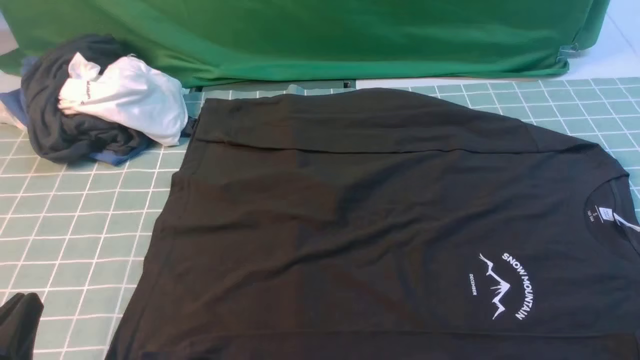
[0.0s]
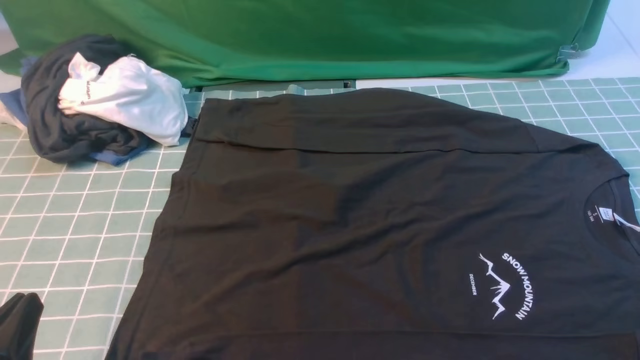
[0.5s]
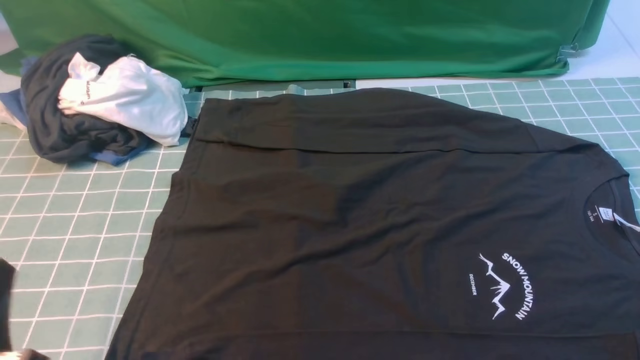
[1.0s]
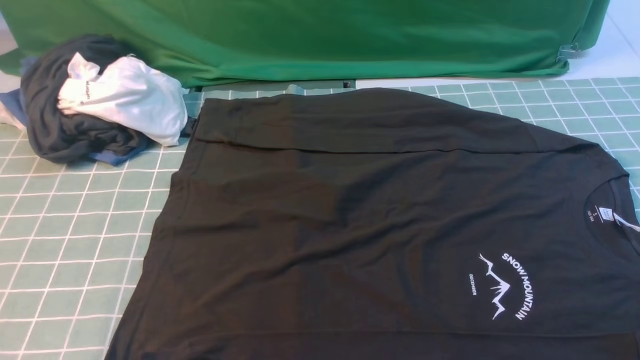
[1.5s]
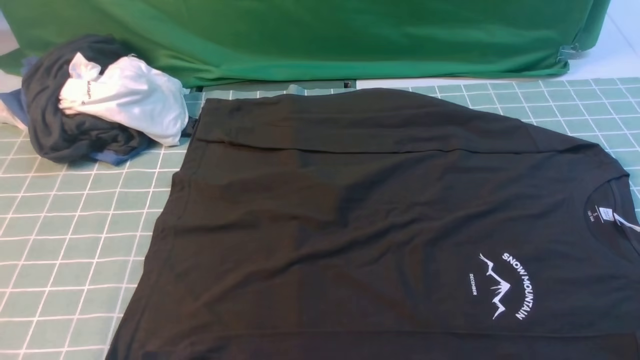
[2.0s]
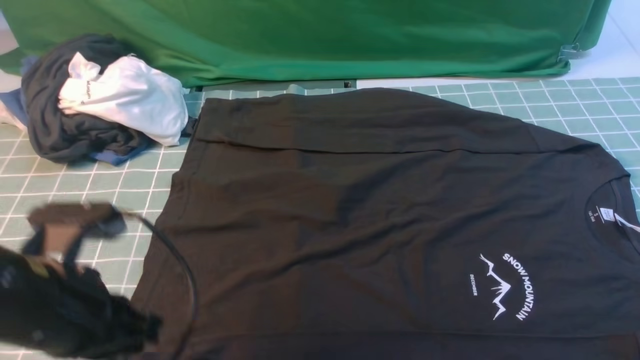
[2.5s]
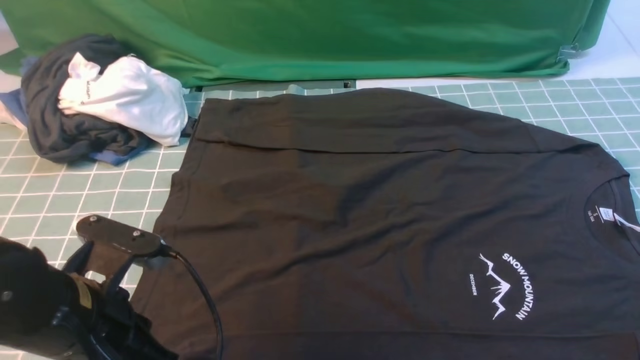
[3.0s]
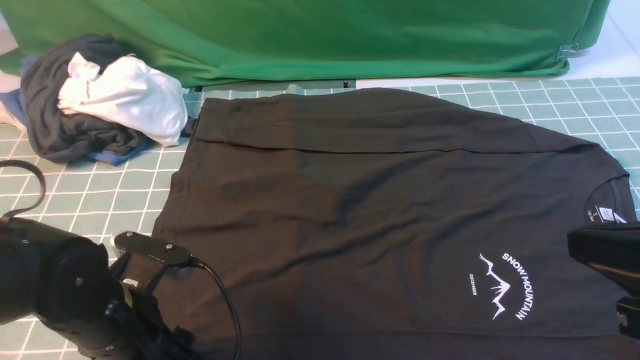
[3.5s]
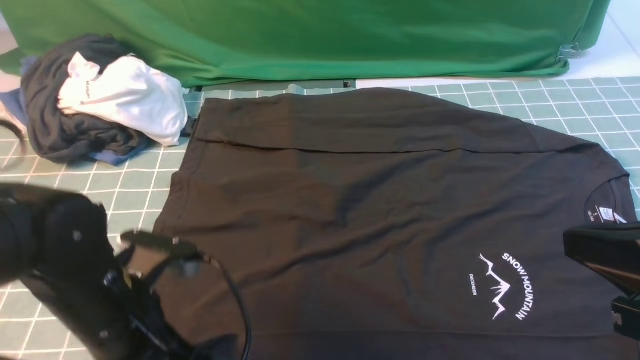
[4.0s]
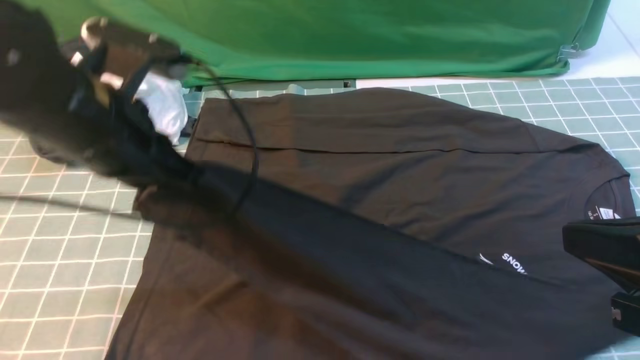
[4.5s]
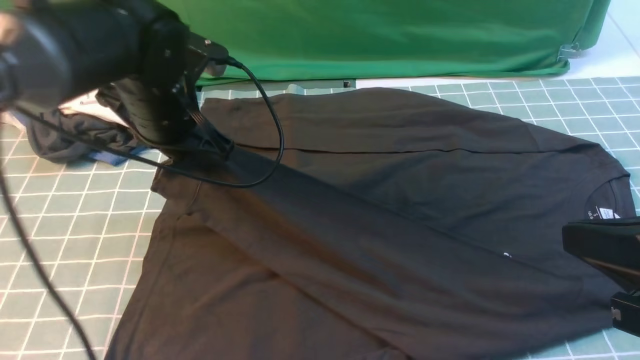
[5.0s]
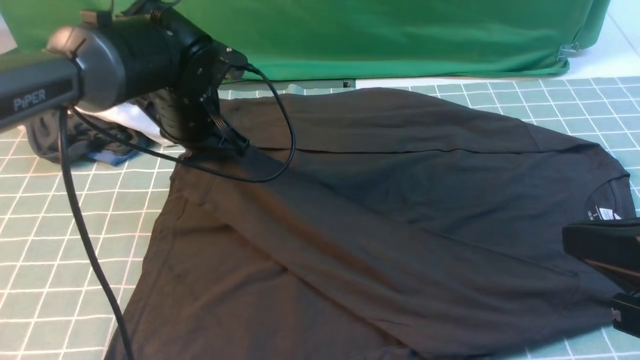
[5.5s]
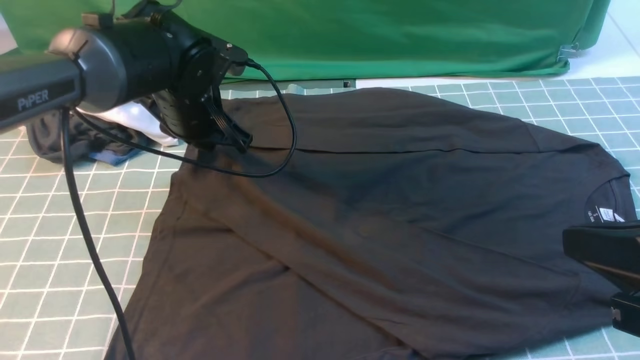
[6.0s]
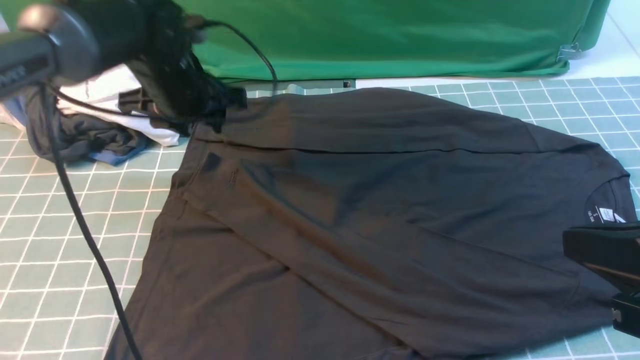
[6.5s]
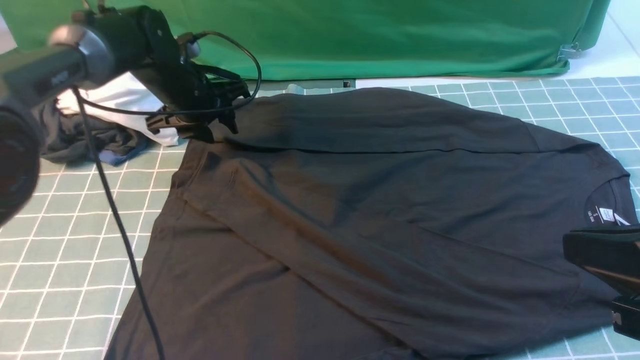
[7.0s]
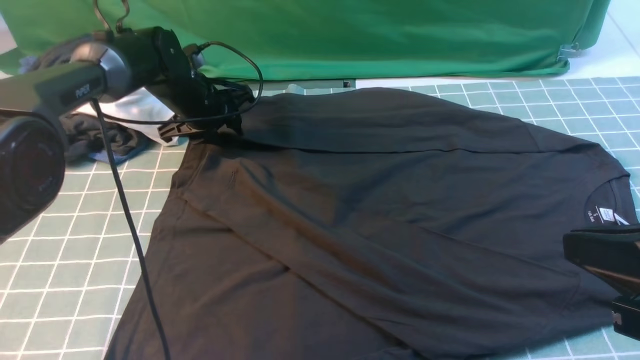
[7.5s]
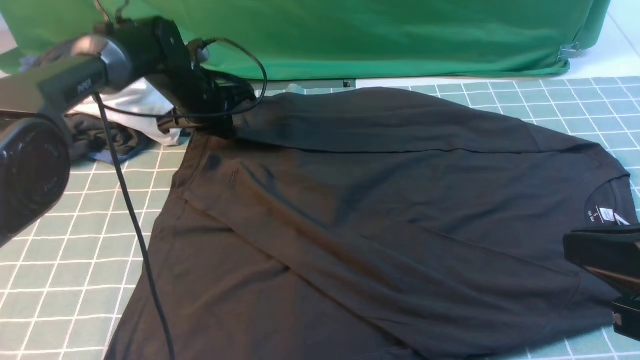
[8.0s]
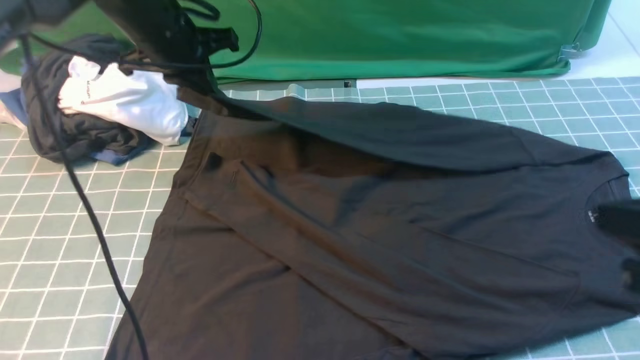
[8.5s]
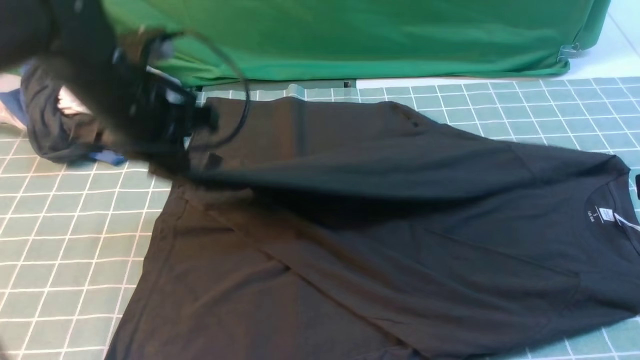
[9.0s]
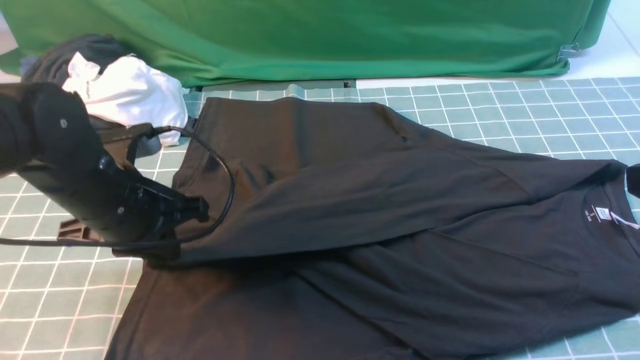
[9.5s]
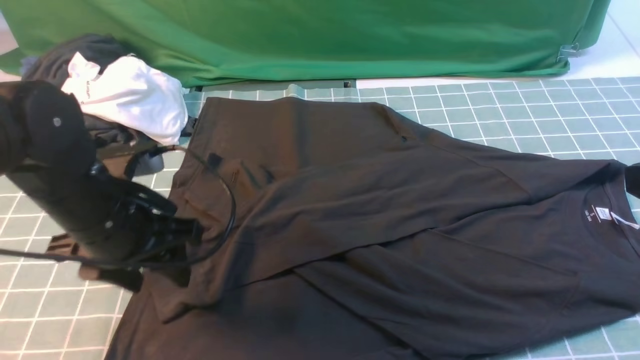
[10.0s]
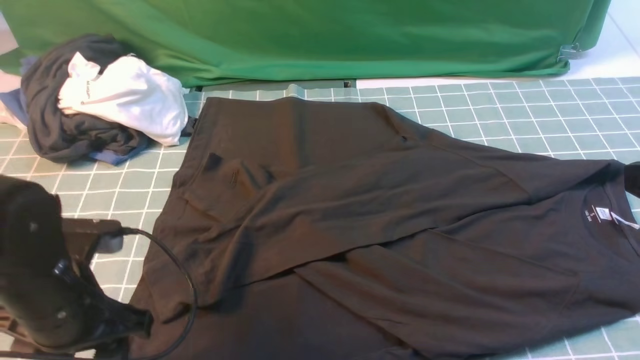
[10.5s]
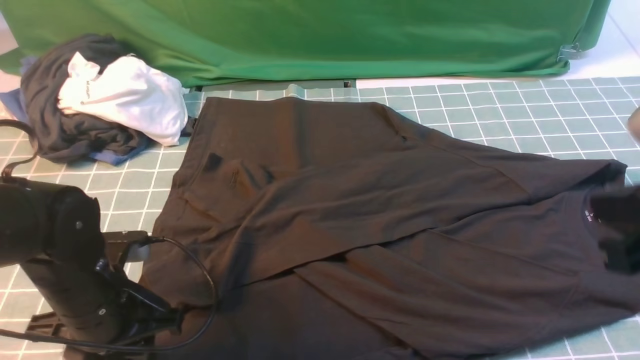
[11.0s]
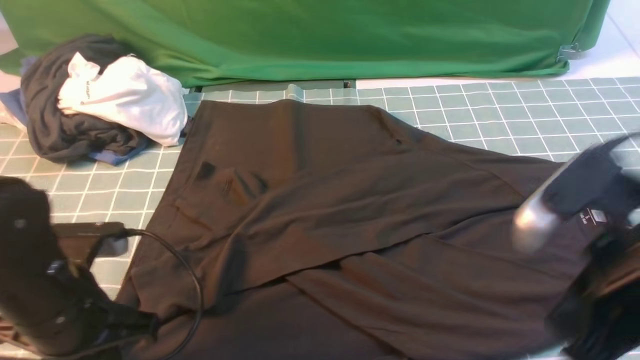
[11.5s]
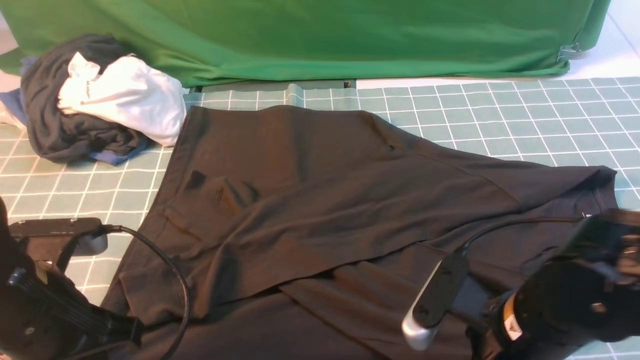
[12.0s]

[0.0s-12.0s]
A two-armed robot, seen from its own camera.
Step, 0.0s to 3.5s: use the left arm to clamp the cuff closest to it.
Step, 4.0s to 6.0s: use the left arm to drag and place the cuff at the centered position on the left edge of the fabric.
Step, 6.5s to 7.5s: use the left arm to clamp the cuff farthest from it.
Step, 8.0s to 10.0s: use the left arm to drag and drop the cuff onto the cuff closest to the left arm.
0.0s to 2.0s: The left gripper shifts about 15 cm upward.
2.0s to 4.0s: The left gripper travels downward, forward and to the right by approximately 20 cm, and opens, then closes again. The right gripper goes approximately 15 cm upward, to the left and forward, and closes its fingers.
4.0s to 6.0s: The left gripper goes approximately 20 cm forward, and opens.
6.0s to 8.0s: The left gripper moves forward, approximately 10 cm, and closes its fingers.
8.0s to 10.0s: The left gripper travels backward by some 25 cm, and opens its fingers.
10.0s to 12.0s: The left gripper moves backward, about 10 cm, and closes up. The right gripper shifts roughly 20 cm downward and to the left, and opens its fingers.

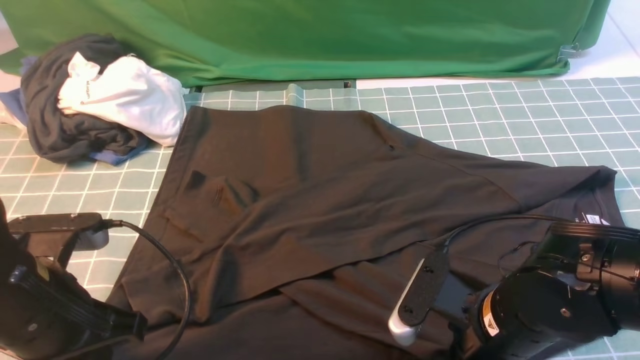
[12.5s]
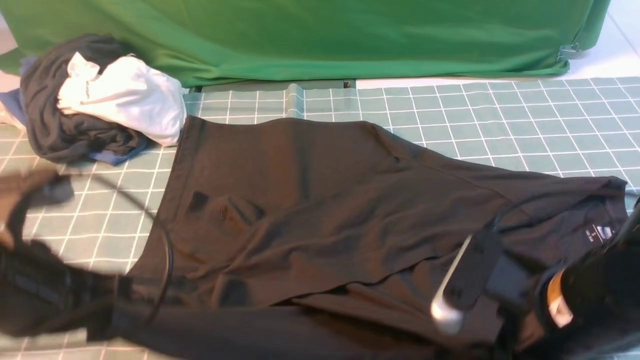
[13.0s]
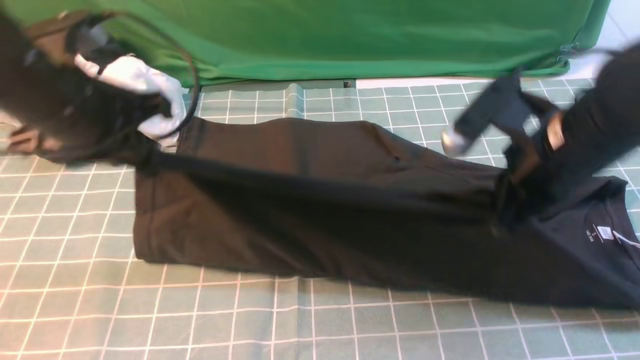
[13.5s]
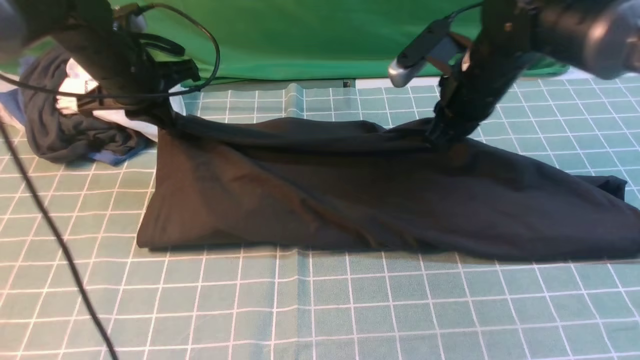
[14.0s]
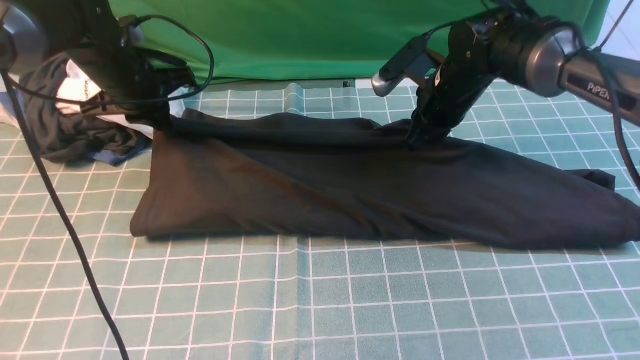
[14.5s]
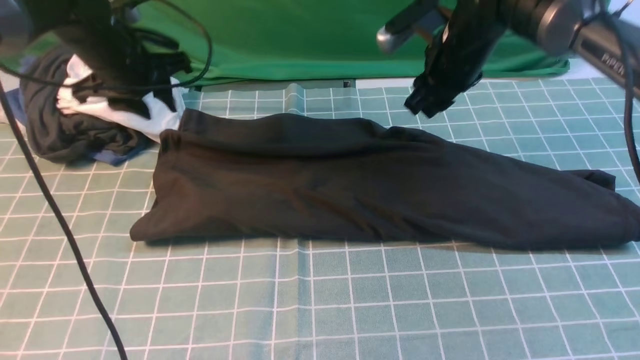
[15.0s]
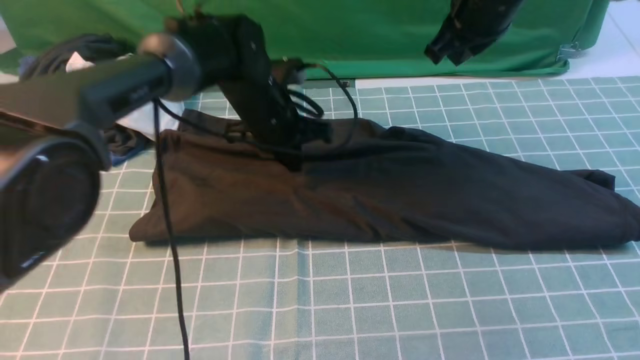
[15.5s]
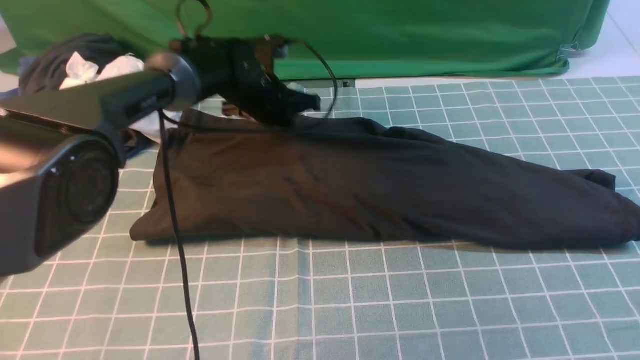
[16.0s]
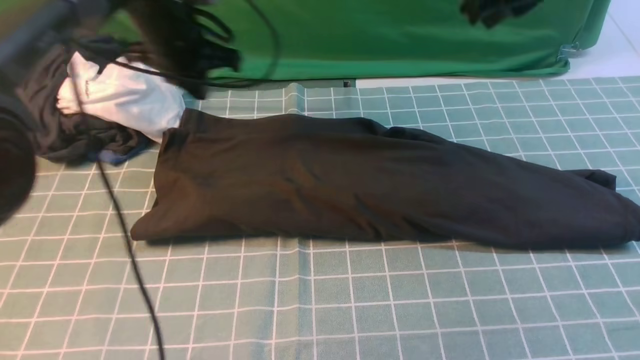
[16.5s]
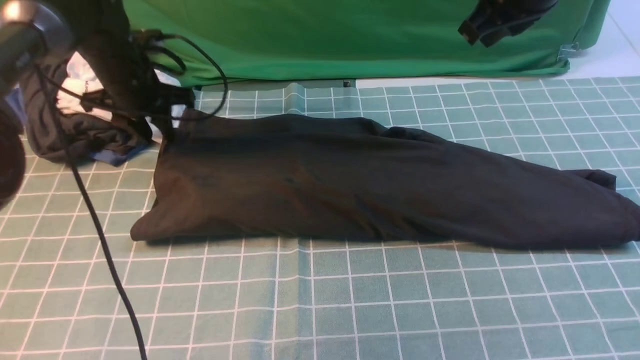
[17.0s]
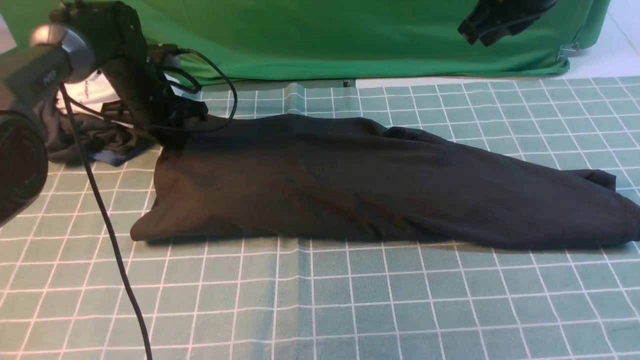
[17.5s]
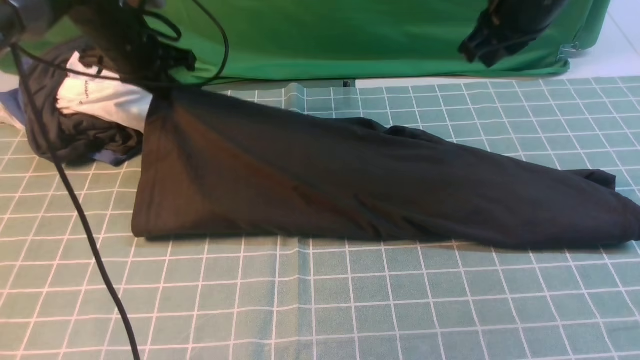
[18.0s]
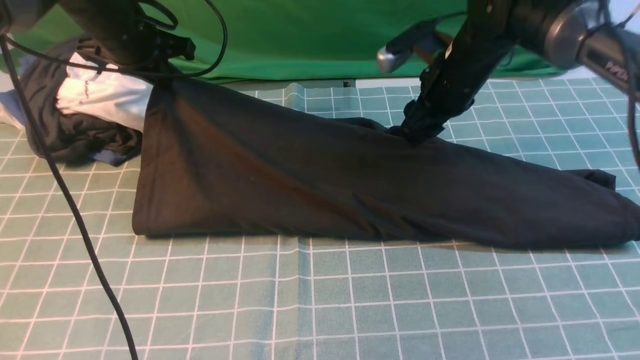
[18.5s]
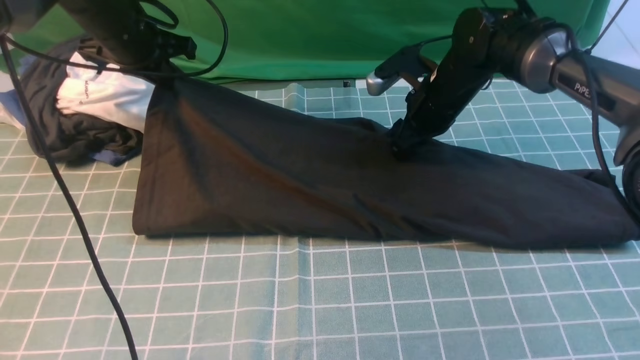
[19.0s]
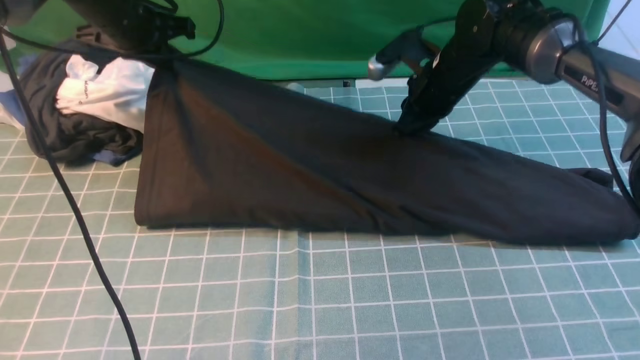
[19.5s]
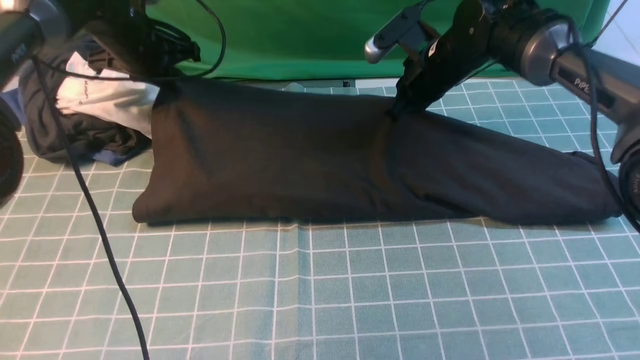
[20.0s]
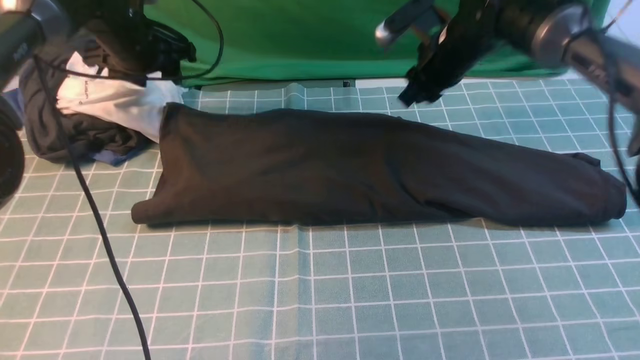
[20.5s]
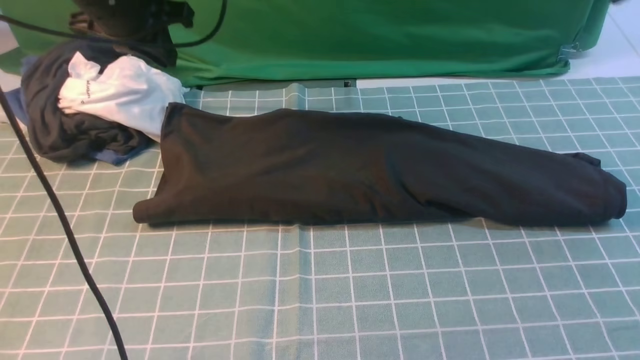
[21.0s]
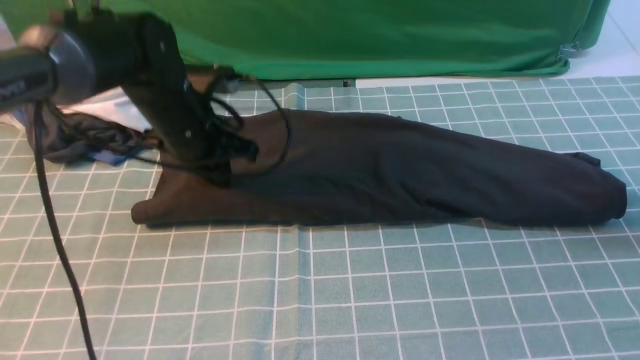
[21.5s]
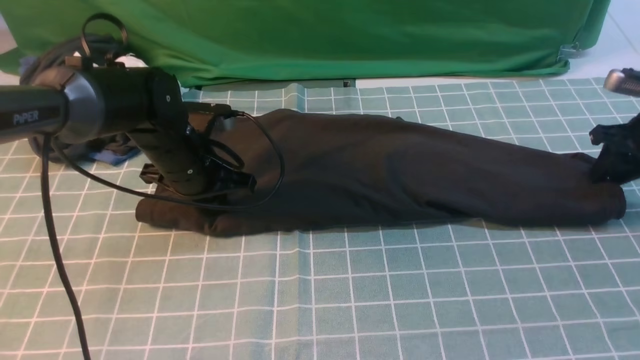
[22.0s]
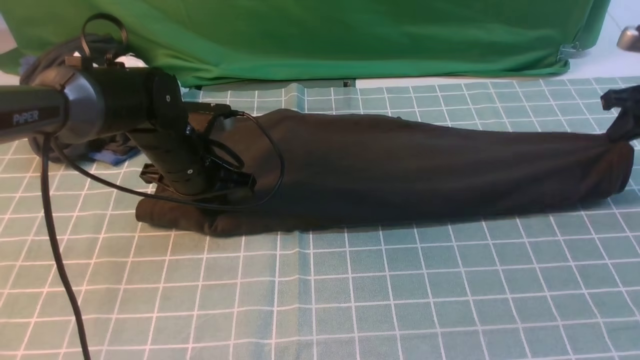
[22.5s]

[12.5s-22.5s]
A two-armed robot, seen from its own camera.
Step, 13.0s to 15.0s: use both arms to drag the lower edge of the fabric forward and fold it over the upper edge.
12.5s to 14.5s: Both grippers travel together forward, roughly 30 cm.
14.5s to 16.5s: The right gripper is displaced upward by about 20 cm, while the left gripper moves about 15 cm to the right and comes back.
16.5s to 18.5s: The left gripper goes downward and returns, approximately 10 cm each way, and opens and closes again. Meanwhile the right gripper goes approximately 20 cm downward and forward, and opens its fingers.
18.5s to 20.5s: The right gripper closes. Meanwhile the left gripper opens its fingers.
20.5s to 22.5s: The left gripper heads backward, downward and to the right, covering about 20 cm, and closes; the right gripper shifts roughly 25 cm to the right, and opens, then closes once more.
